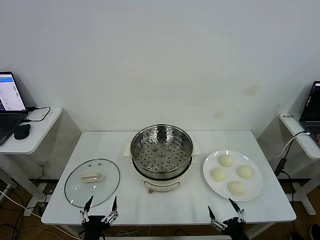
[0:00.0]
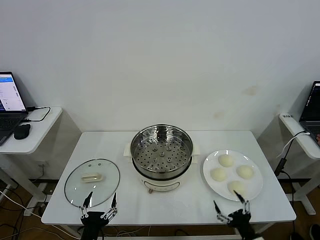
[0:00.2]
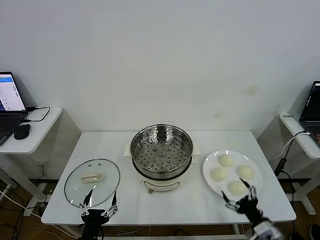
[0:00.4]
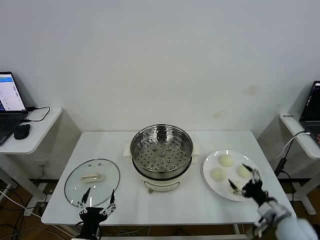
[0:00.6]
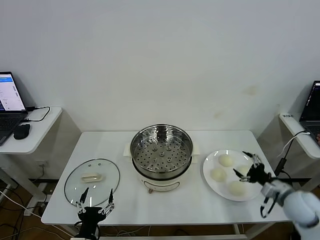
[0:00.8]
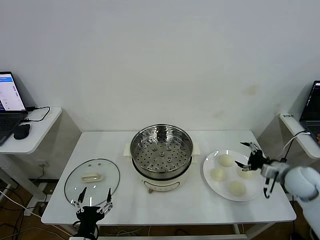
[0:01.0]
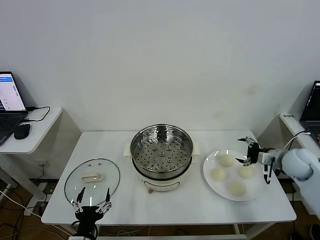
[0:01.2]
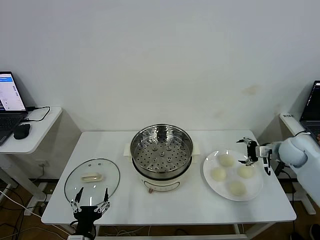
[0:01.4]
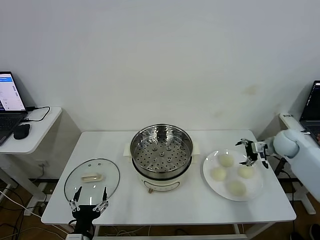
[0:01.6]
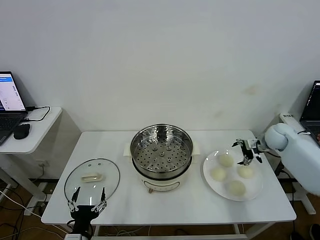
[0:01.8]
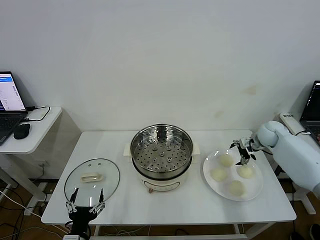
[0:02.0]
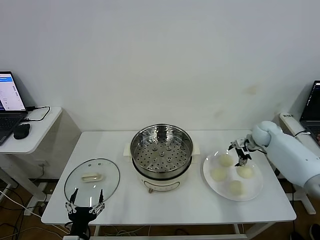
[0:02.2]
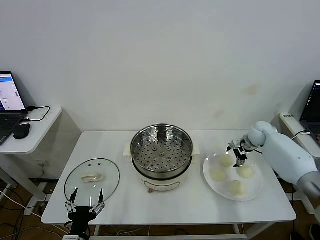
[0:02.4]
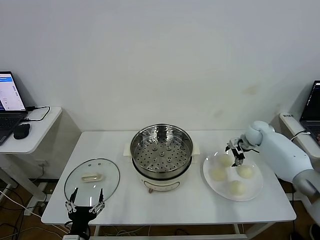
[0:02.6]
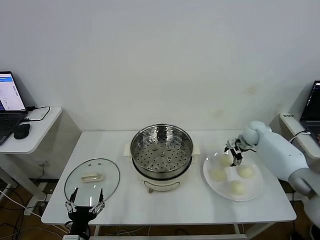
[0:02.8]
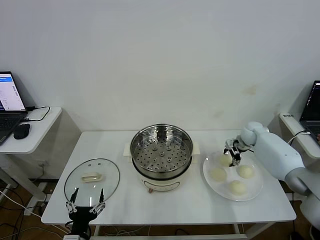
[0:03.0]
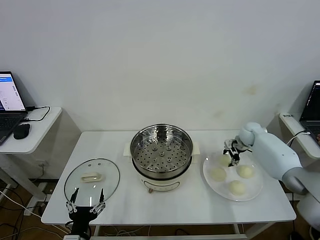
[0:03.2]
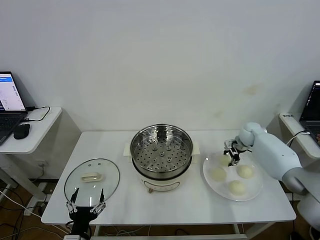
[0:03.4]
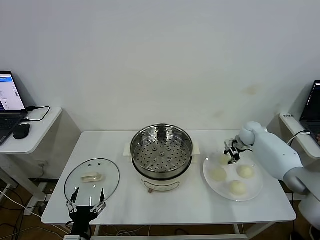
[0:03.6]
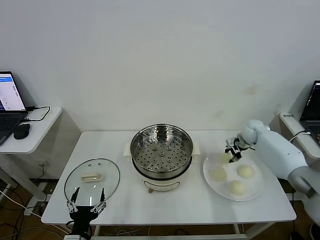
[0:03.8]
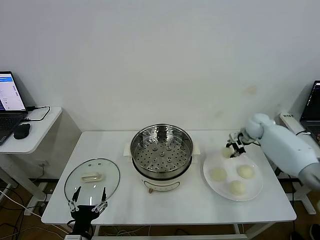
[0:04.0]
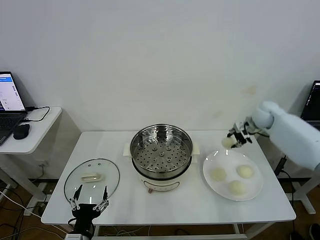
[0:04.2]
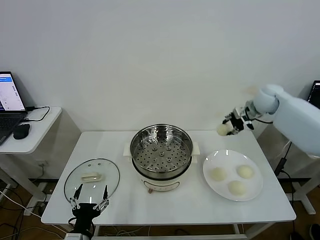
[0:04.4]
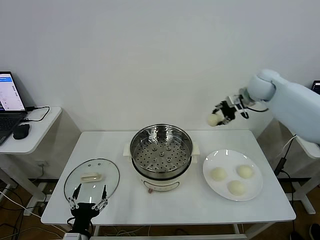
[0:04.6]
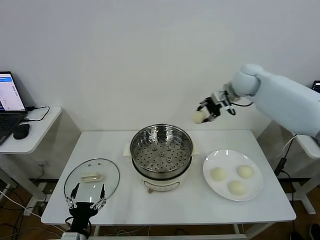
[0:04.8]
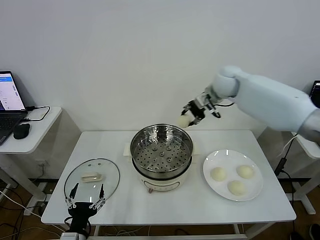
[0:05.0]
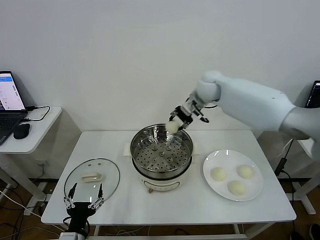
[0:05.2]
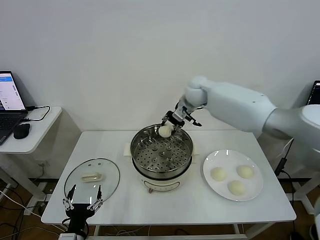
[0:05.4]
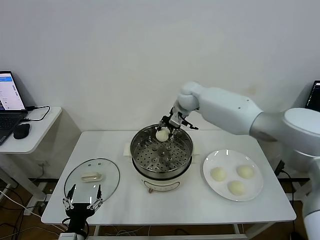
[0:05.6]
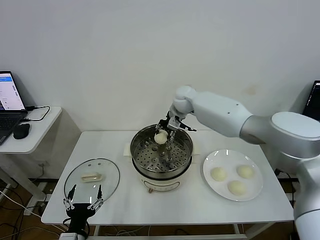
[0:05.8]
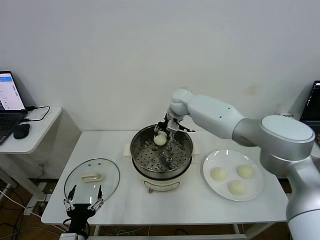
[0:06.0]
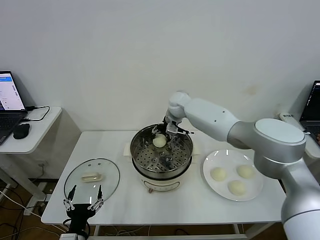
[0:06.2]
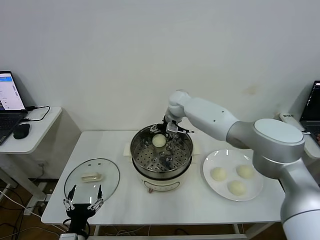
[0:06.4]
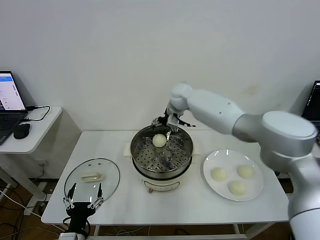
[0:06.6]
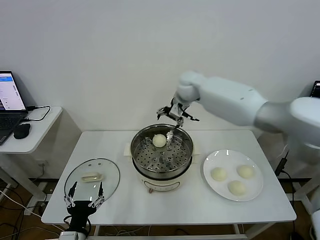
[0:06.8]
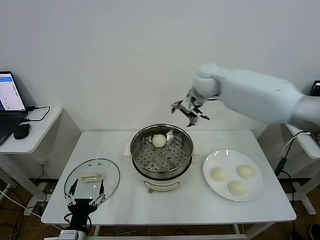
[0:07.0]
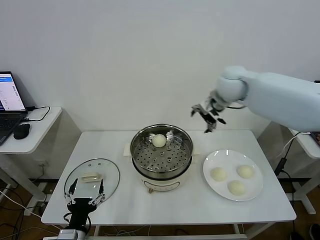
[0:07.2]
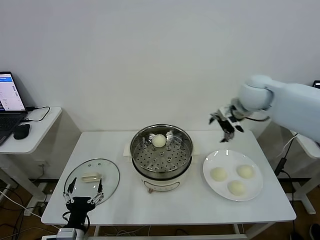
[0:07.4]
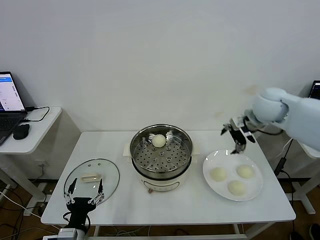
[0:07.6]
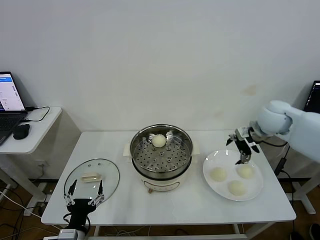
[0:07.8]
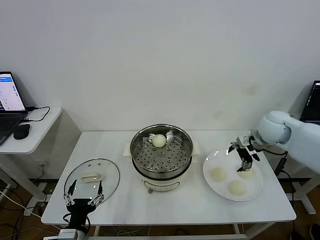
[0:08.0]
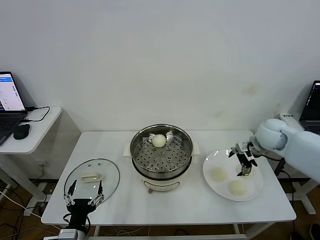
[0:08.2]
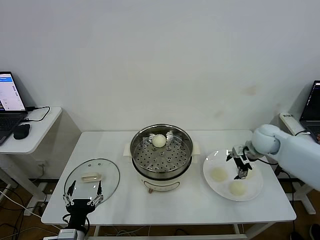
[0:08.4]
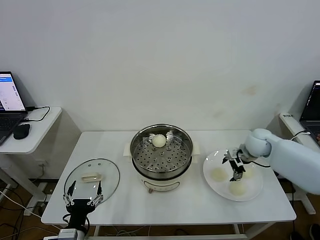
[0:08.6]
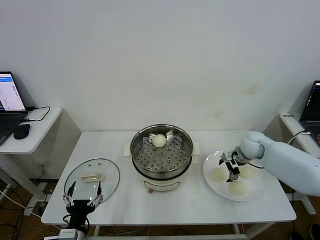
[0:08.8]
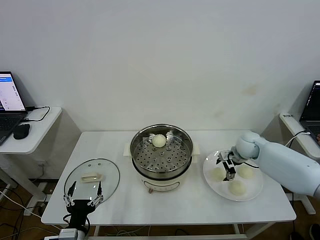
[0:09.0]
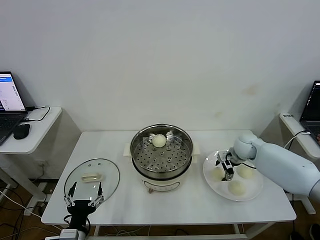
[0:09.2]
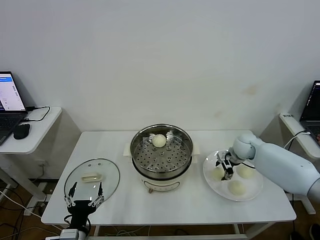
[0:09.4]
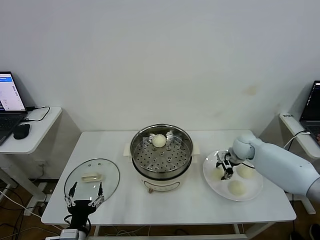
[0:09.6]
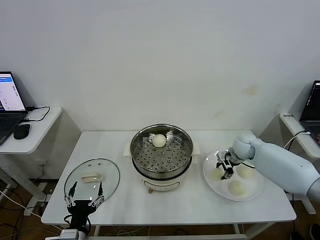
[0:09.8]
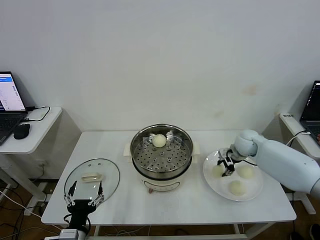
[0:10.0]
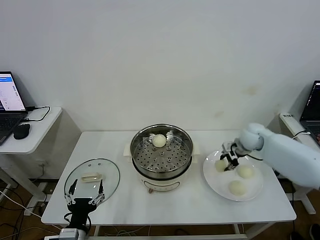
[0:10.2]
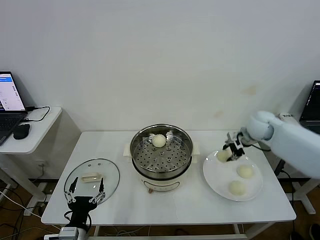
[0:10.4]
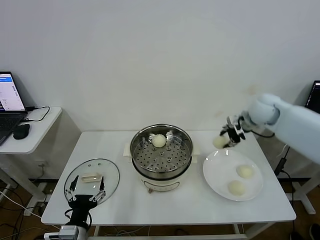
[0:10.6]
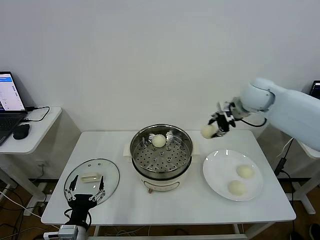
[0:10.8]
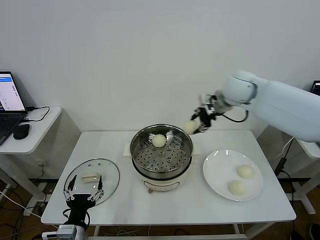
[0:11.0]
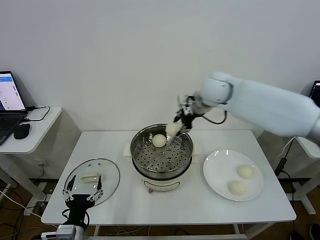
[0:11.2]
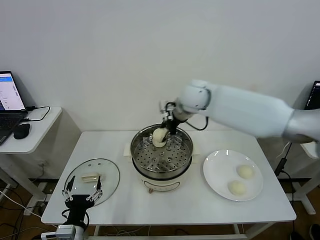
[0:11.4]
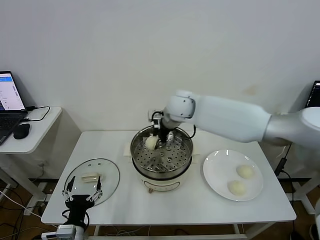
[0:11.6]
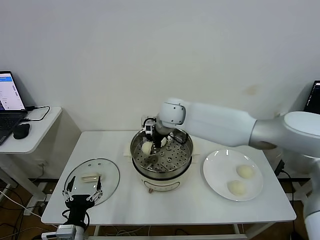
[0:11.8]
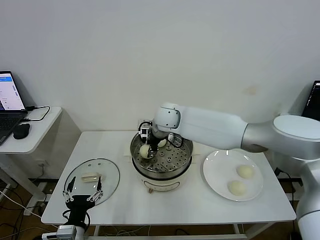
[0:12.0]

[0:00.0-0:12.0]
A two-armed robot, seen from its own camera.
Step, 0.0 to 3.4 s: Grasp the baozi in the plate with right gripper.
Step, 3.6 to 6.6 s: Place the baozi on the steamer with right gripper.
Step, 6.8 to 9.8 s: Grasp the baozi in the plate with right gripper.
1.6 to 3.0 s: The right gripper travels forward, to the left and downward by roughly 10 cm, and closes its fingers.
3.0 to 4.4 s: The right gripper heads upward, covering approximately 20 cm, and closes.
4.4 to 6.0 s: The right gripper shifts roughly 25 cm to the left.
6.0 to 7.6 s: The right gripper heads to the right and backward, covering about 30 cm, and opens up.
7.6 to 9.0 s: The right gripper heads downward, covering about 20 cm.
9.0 to 10.4 s: The right gripper is displaced upward by roughly 15 cm, and closes its fingers.
10.4 to 12.0 s: The right gripper goes roughly 35 cm to the left.

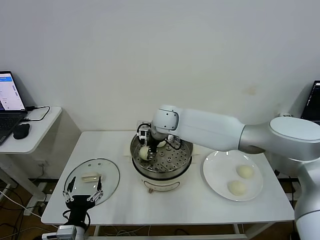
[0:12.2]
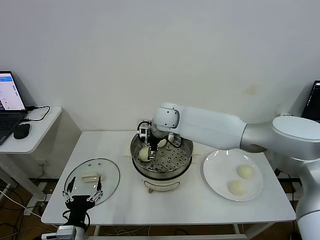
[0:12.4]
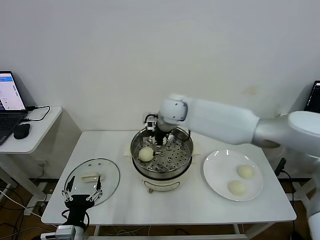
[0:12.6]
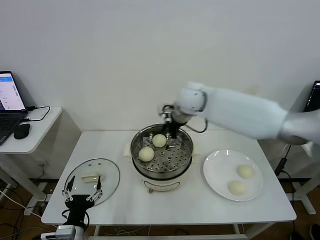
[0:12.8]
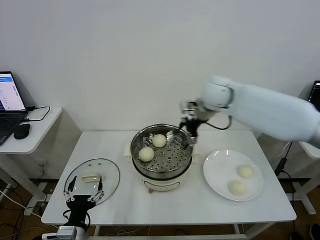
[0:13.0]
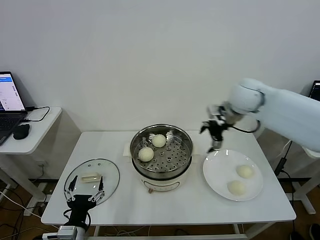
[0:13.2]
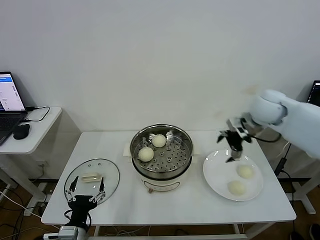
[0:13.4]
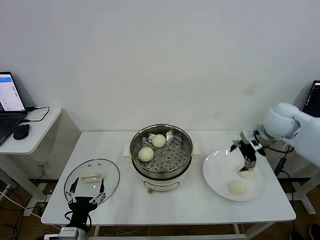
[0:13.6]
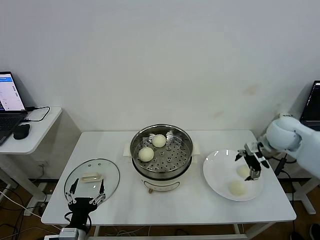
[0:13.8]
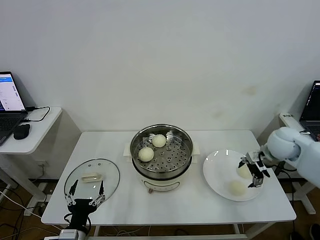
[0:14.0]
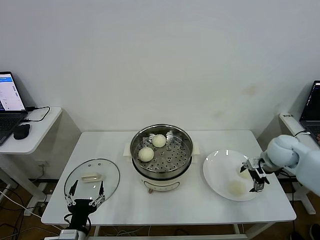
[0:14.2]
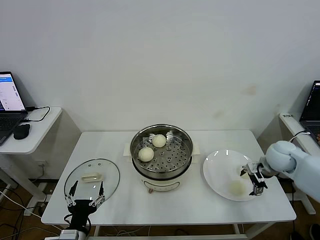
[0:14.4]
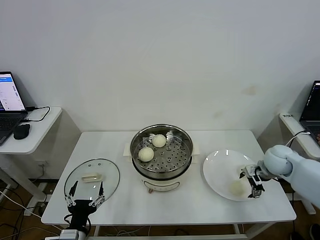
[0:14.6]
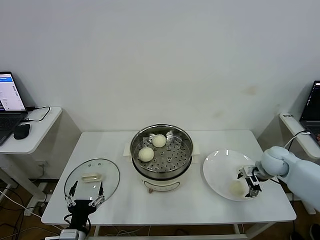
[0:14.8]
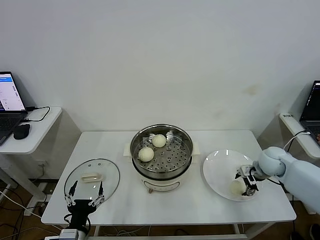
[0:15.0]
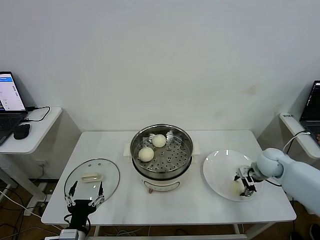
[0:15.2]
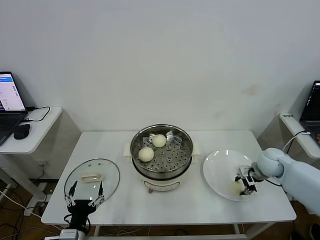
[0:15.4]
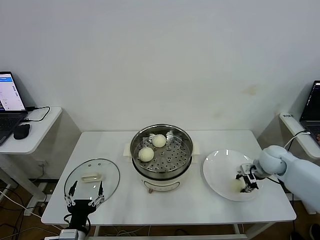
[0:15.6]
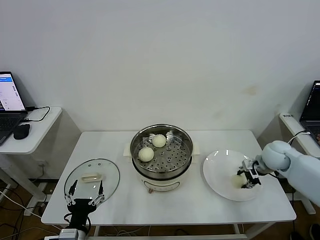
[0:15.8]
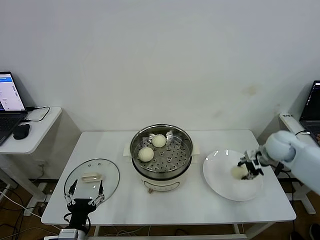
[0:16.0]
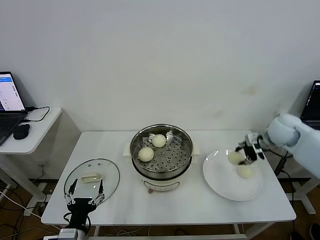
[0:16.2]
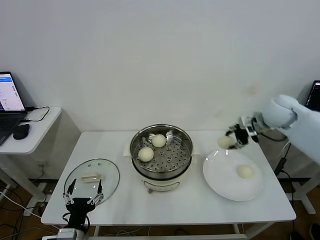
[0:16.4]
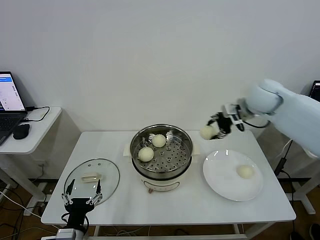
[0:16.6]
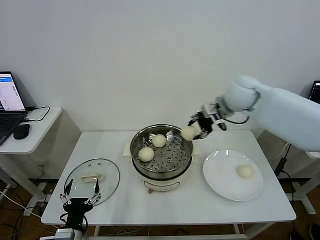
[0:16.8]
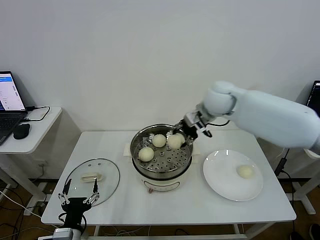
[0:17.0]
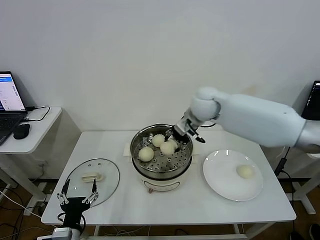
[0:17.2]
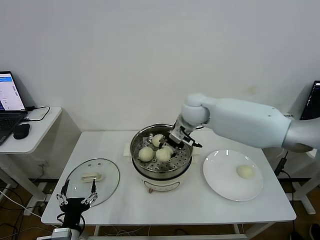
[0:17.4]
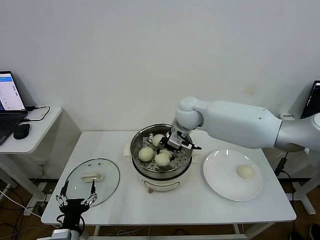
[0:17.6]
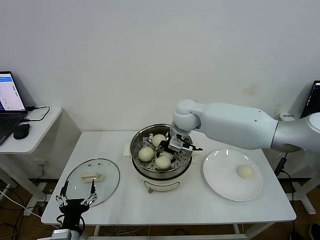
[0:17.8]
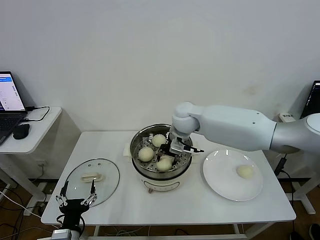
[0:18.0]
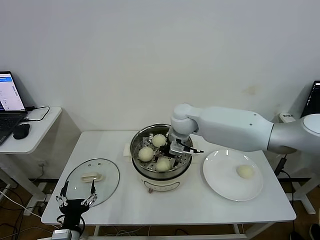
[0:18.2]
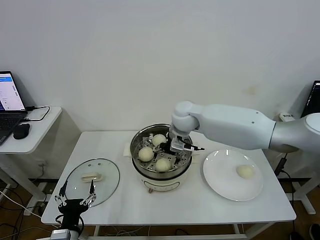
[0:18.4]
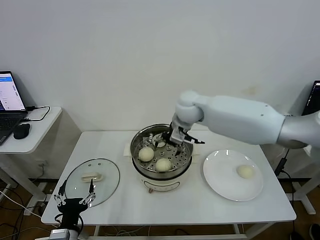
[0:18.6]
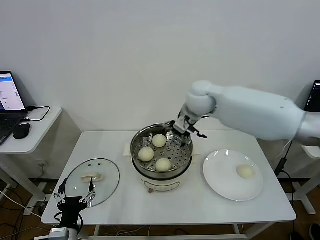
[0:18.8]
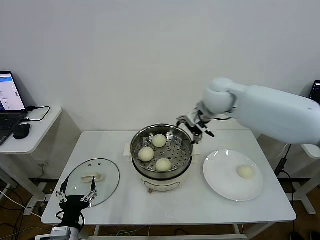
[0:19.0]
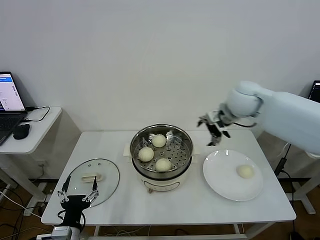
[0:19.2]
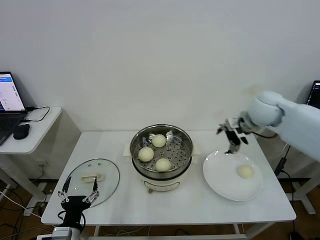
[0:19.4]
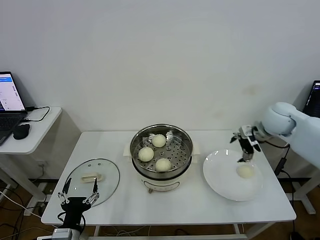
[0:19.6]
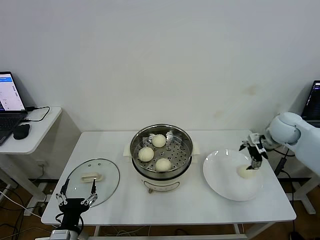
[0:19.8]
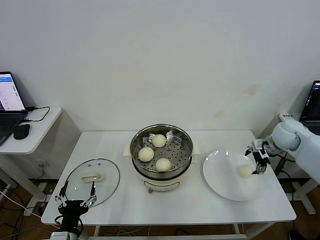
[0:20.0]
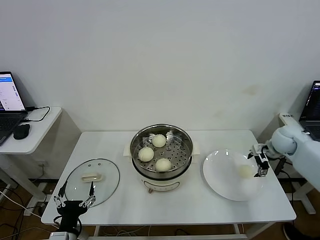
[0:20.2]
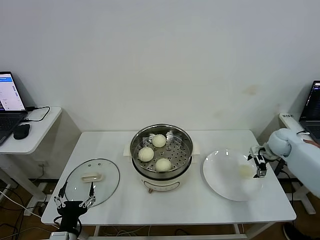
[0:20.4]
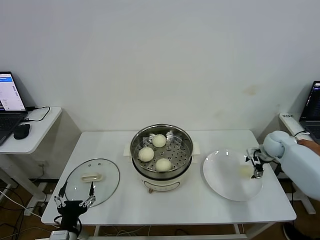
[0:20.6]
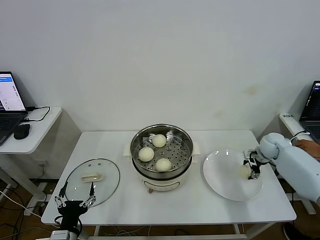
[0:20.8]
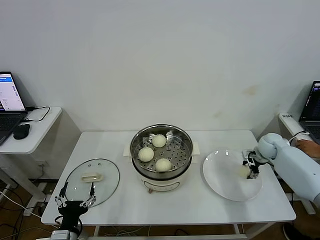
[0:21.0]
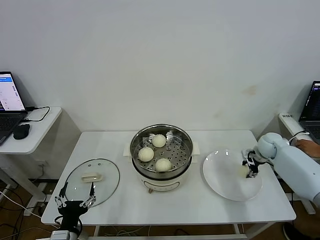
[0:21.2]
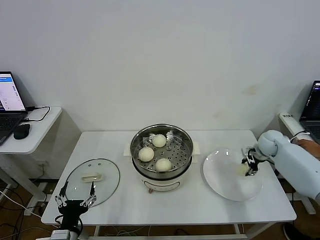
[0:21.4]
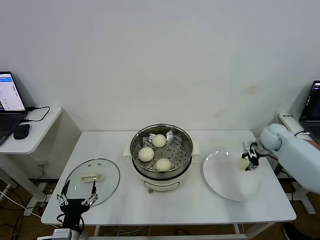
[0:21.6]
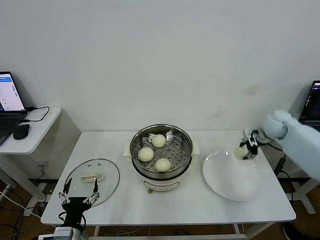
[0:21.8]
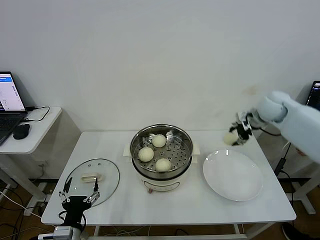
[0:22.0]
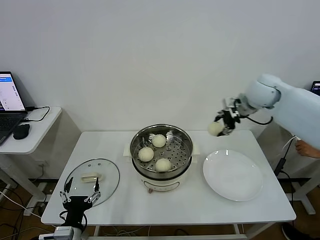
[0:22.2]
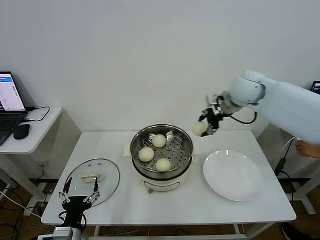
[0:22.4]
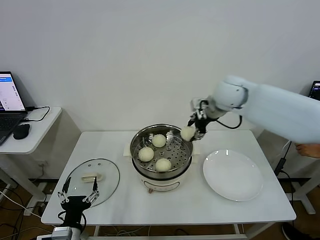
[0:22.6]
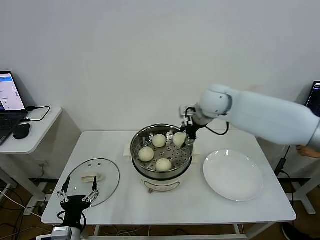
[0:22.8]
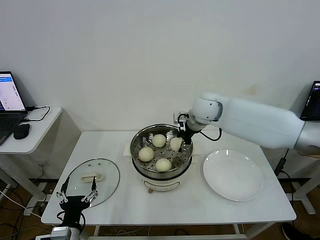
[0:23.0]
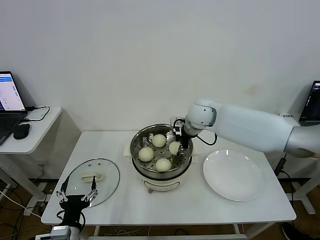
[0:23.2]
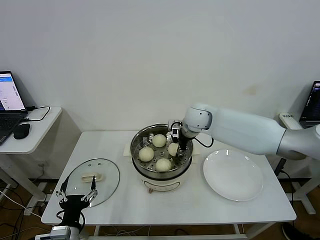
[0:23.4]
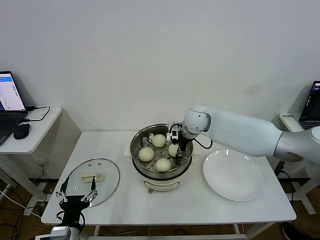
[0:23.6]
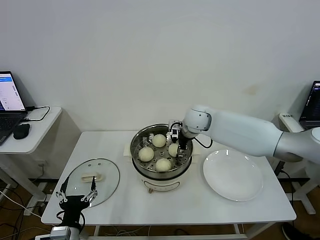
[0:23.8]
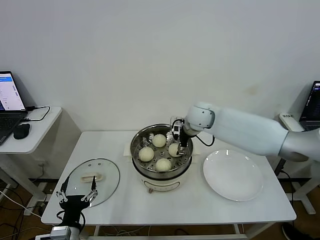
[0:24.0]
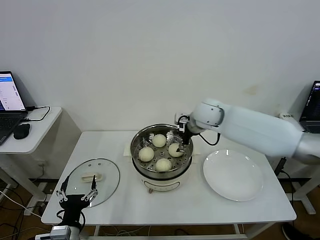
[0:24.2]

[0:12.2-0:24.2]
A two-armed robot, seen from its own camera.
Step, 13.0 to 15.2 s: Grasp the baozi in the plate with right gripper.
Step, 15.4 to 18.6 s: Place the baozi on the steamer with right gripper.
Step, 19.0 to 21.2 s: Grasp the baozi in the plate with right gripper.
12.2 to 13.8 s: The right gripper goes about 35 cm to the right, and opens.
13.8 to 15.2 s: The right gripper heads downward, covering approximately 10 cm, and closes up.
15.2 to 16.6 s: The right gripper shifts approximately 25 cm upward and to the left.
16.6 to 18.2 s: The right gripper moves to the left and downward, some 20 cm, and opens.
18.2 to 19.8 s: The right gripper heads to the right, covering some 35 cm.
19.8 to 21.2 s: The right gripper heads downward, covering some 15 cm, and closes up.
21.2 to 22.6 s: The right gripper travels upward and to the left by about 35 cm.
22.6 to 24.2 s: The right gripper shifts about 5 cm downward, and opens up.
